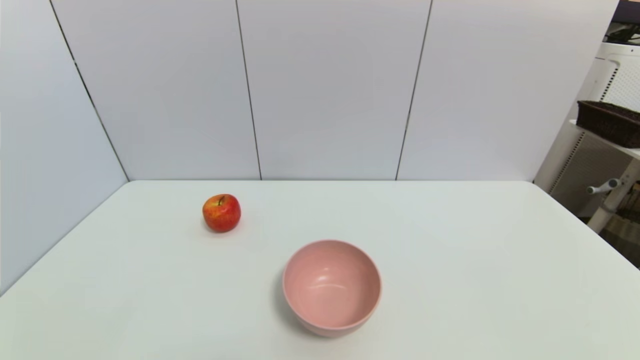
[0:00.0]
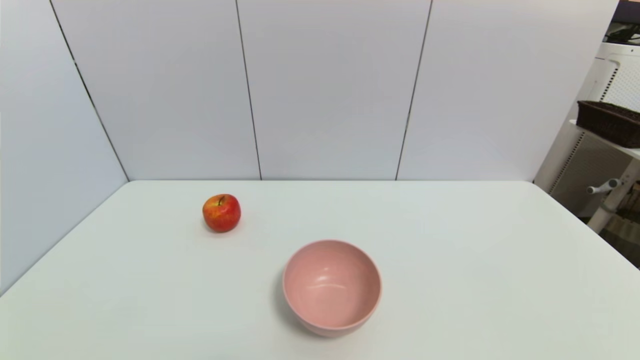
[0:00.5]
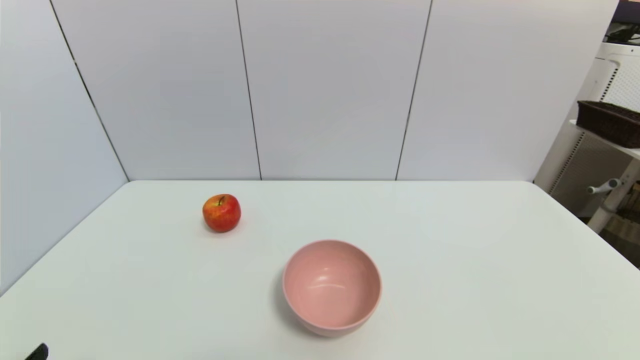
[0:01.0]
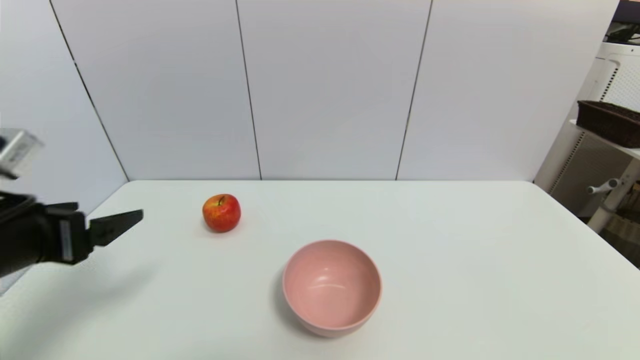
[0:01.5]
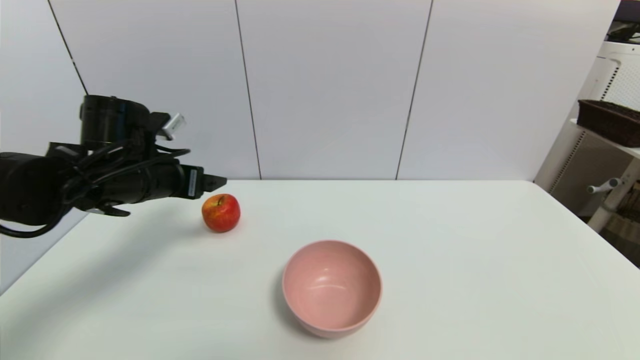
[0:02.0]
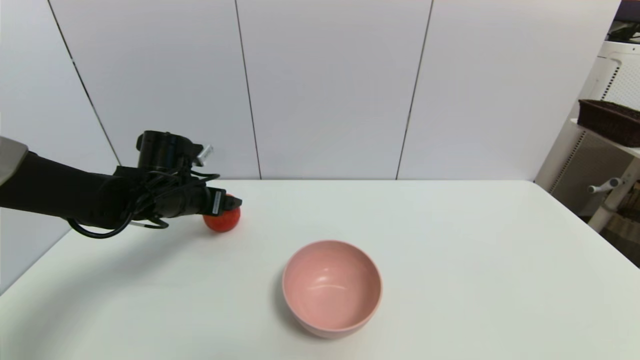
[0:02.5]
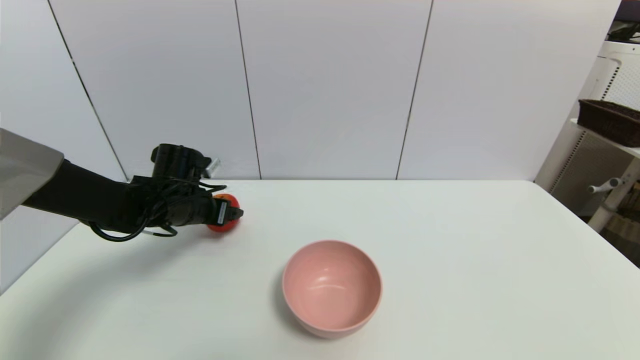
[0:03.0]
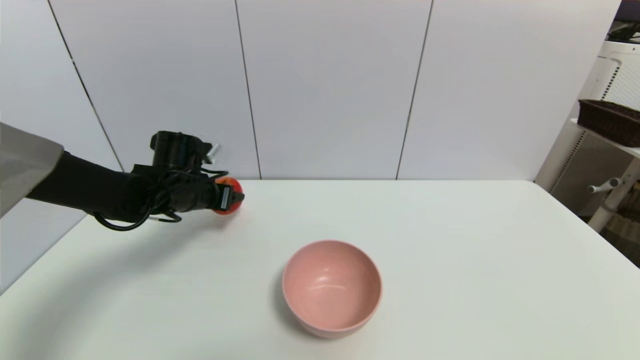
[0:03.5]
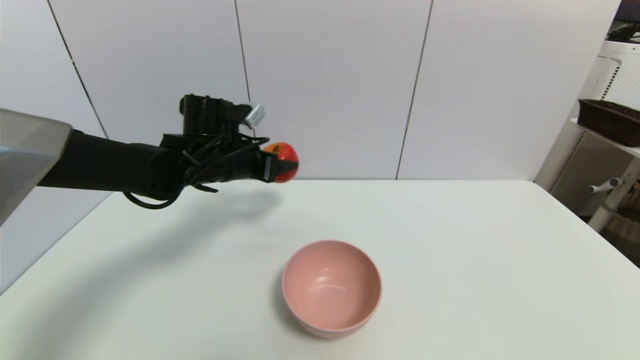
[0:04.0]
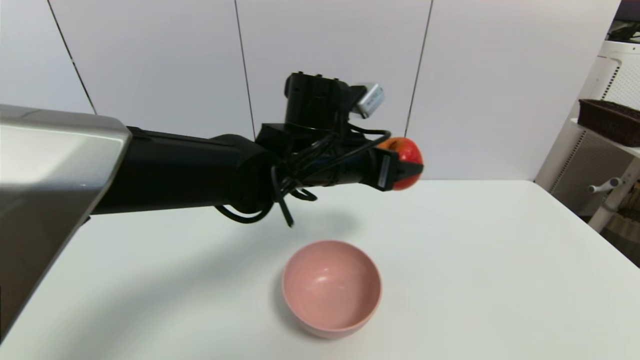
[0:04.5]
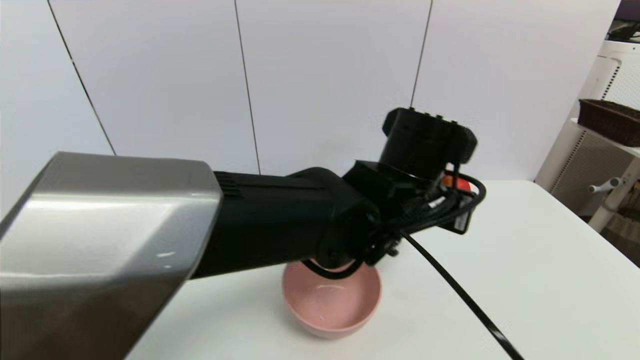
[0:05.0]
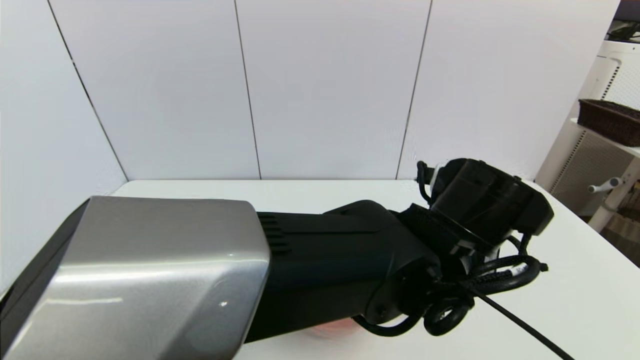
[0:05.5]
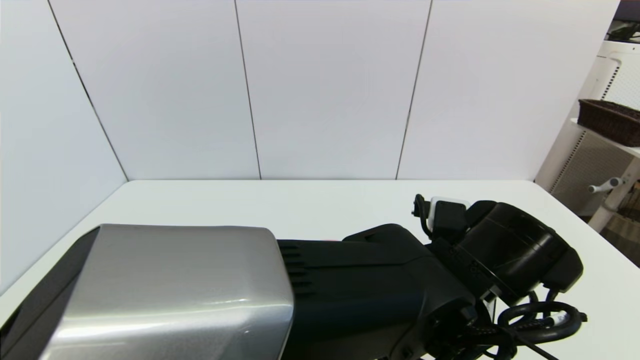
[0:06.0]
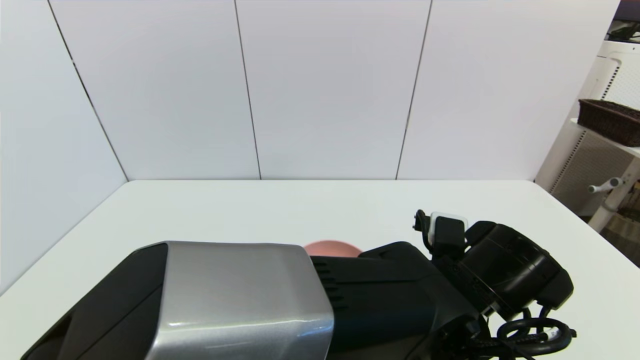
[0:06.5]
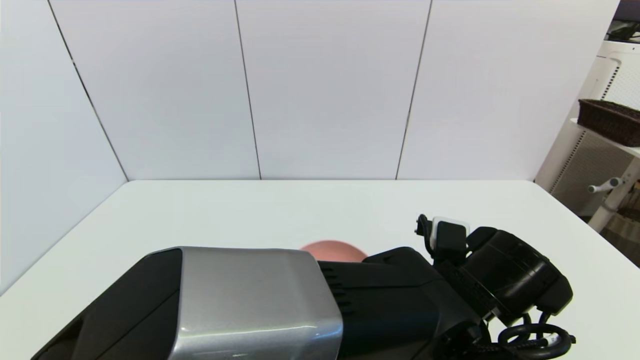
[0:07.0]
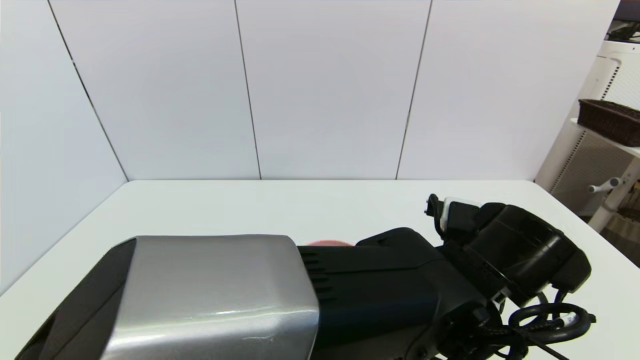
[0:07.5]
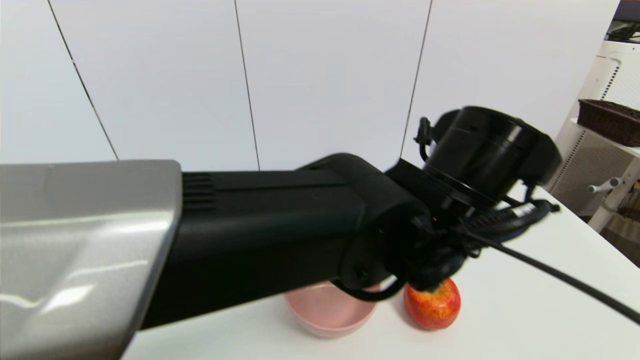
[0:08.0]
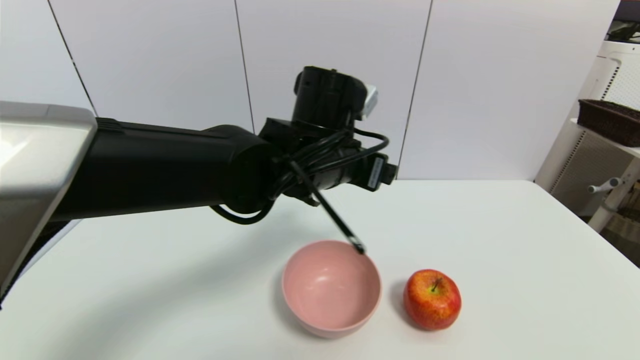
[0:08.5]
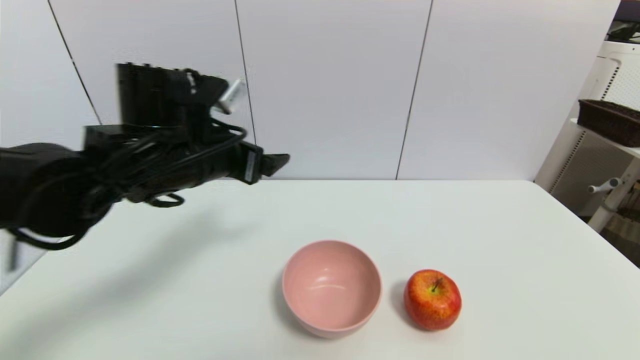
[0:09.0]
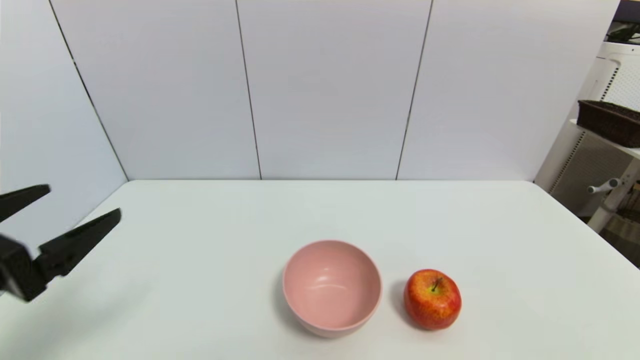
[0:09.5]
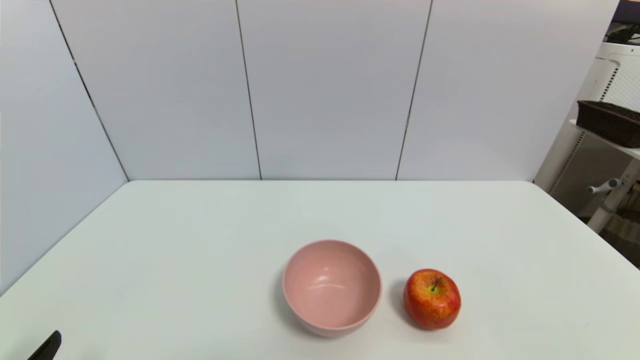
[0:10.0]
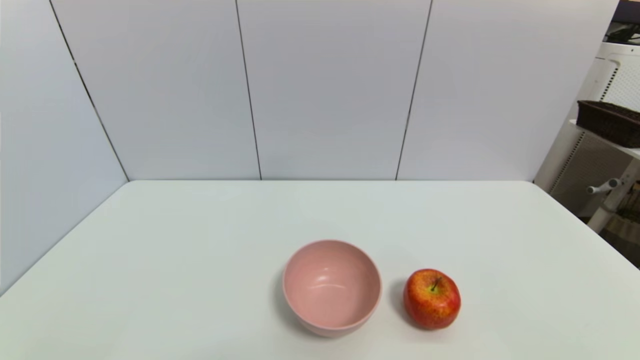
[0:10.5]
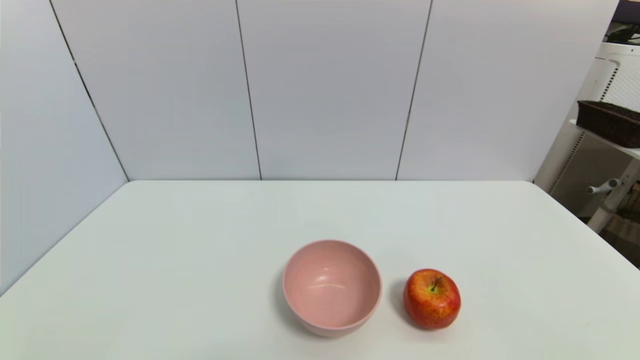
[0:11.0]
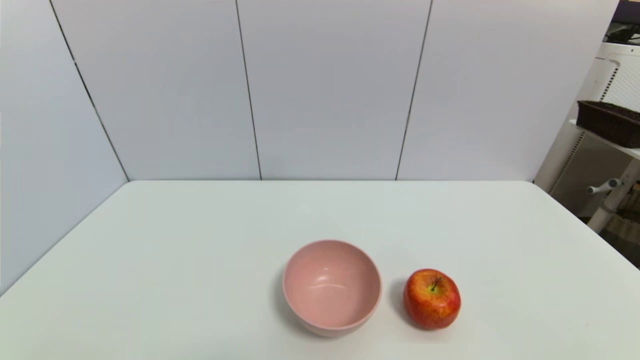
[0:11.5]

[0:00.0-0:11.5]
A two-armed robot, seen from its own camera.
Task of the whole recording: put the apple in the designated position.
Step, 0:01.0 to 0:03.0: Grasp the apple with left gripper.
Step, 0:03.5 to 0:07.5: Place the apple on the table with left gripper.
0:00.0 to 0:02.0: The left gripper goes some 35 cm forward.
0:02.0 to 0:04.0: The left gripper travels to the right and forward by approximately 10 cm, and closes up.
0:04.0 to 0:06.0: The left gripper heads to the right and backward, covering roughly 35 cm.
0:06.0 to 0:07.5: The left gripper opens its fingers.
0:07.5 to 0:09.5: The left gripper moves to the left, some 40 cm.
0:09.5 to 0:11.5: The left gripper heads downward and backward, covering roughly 20 cm.
